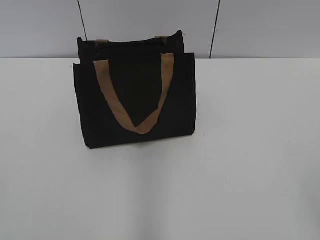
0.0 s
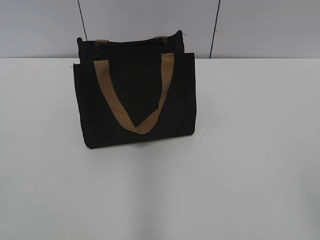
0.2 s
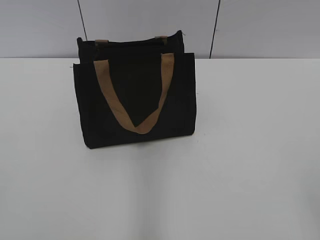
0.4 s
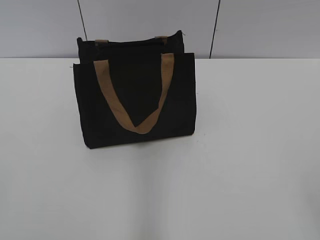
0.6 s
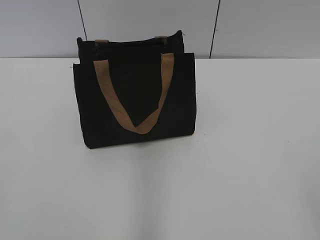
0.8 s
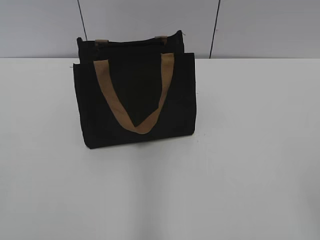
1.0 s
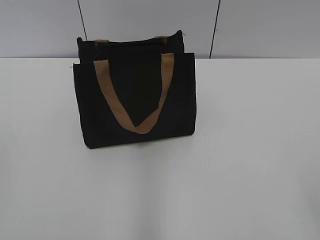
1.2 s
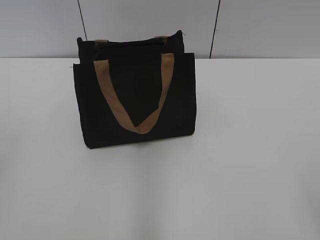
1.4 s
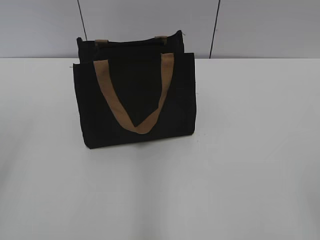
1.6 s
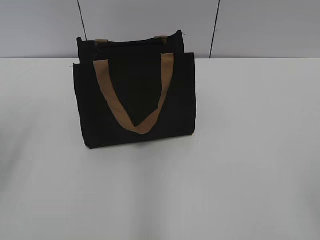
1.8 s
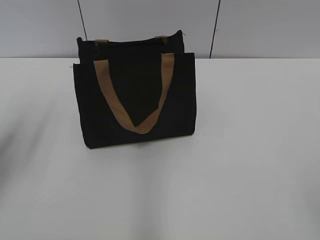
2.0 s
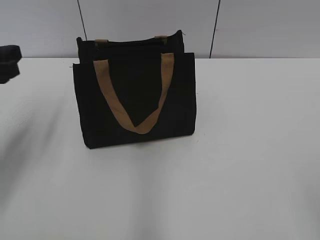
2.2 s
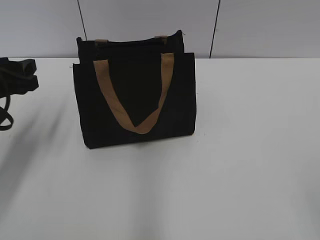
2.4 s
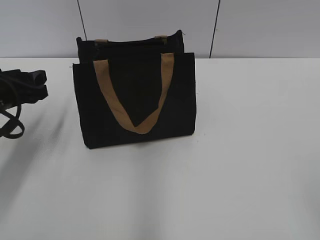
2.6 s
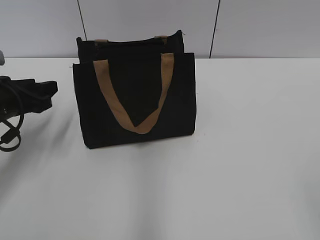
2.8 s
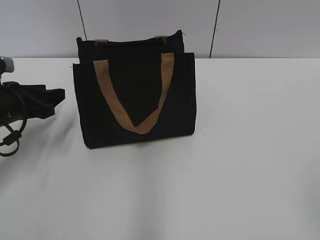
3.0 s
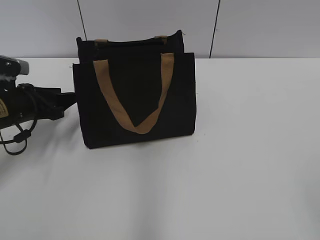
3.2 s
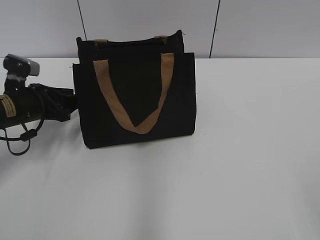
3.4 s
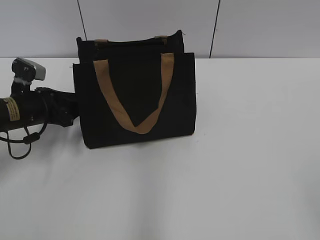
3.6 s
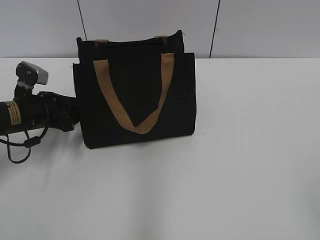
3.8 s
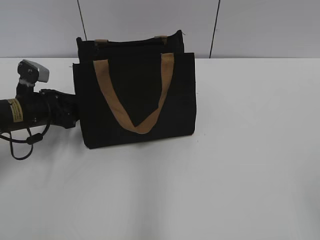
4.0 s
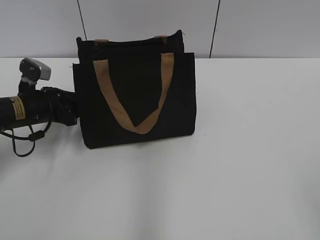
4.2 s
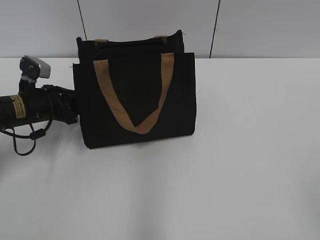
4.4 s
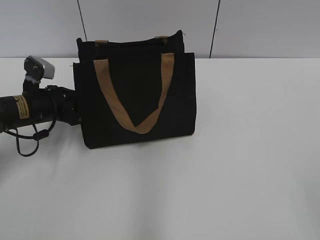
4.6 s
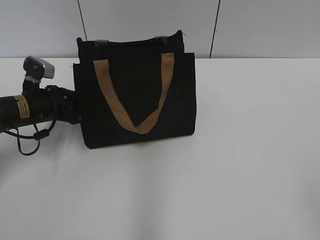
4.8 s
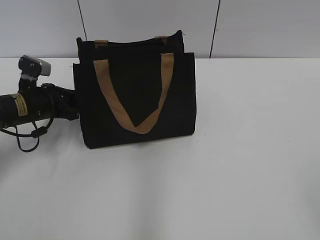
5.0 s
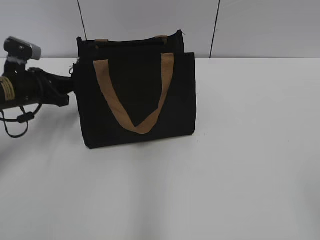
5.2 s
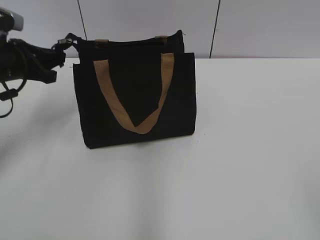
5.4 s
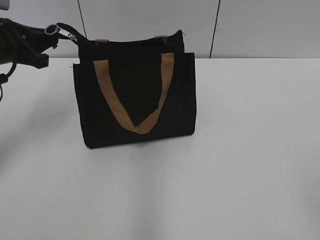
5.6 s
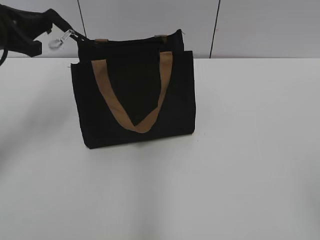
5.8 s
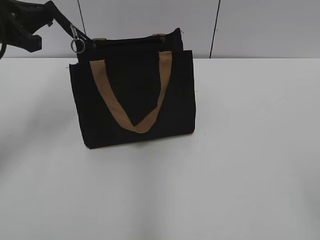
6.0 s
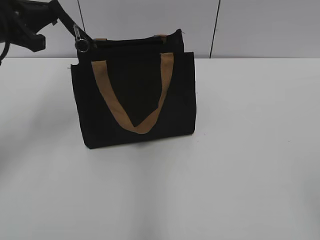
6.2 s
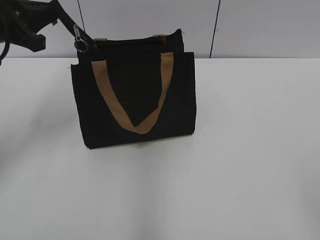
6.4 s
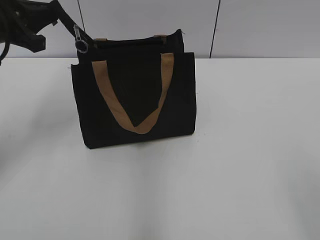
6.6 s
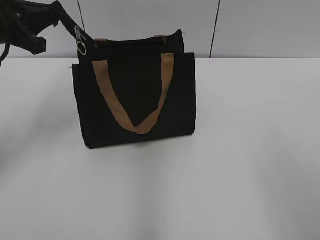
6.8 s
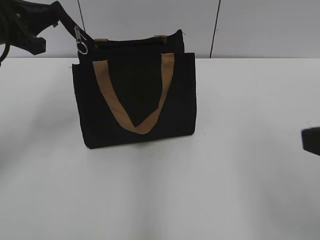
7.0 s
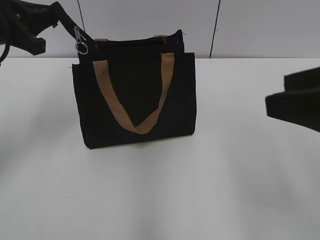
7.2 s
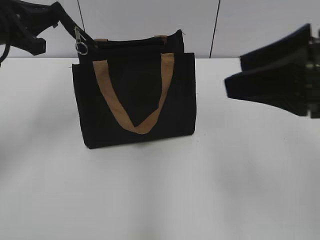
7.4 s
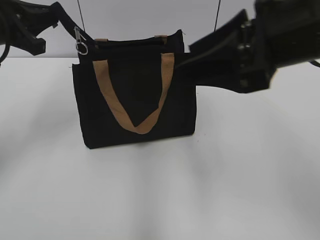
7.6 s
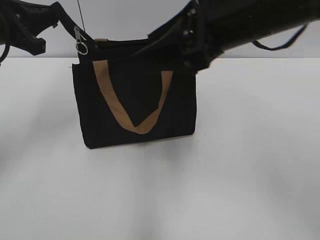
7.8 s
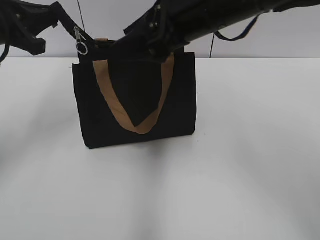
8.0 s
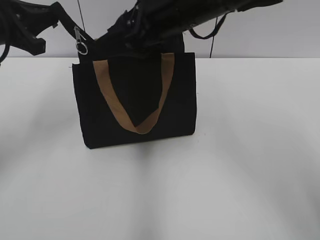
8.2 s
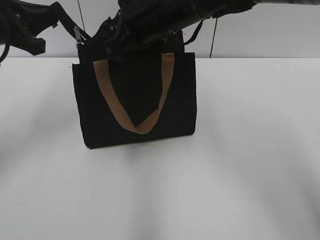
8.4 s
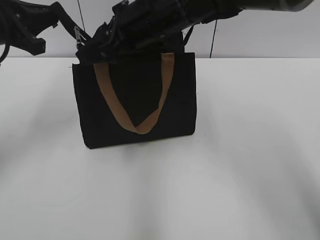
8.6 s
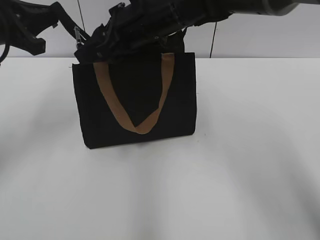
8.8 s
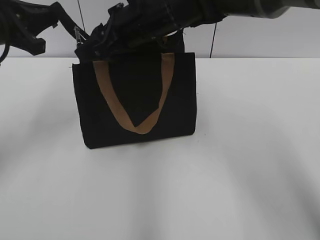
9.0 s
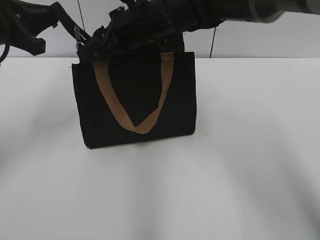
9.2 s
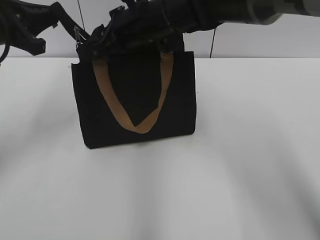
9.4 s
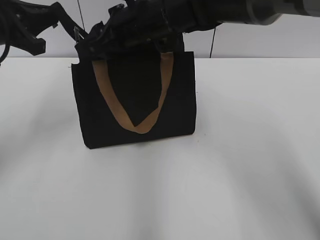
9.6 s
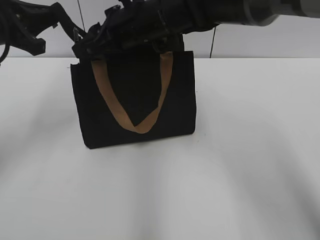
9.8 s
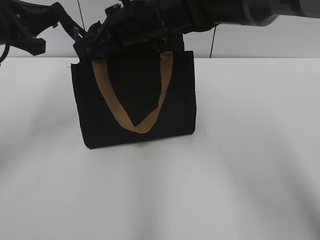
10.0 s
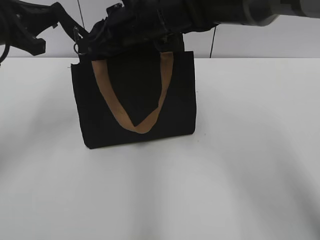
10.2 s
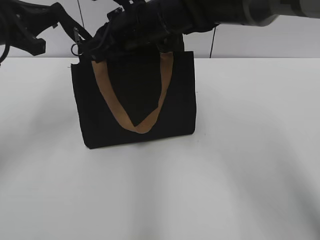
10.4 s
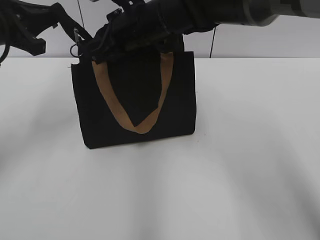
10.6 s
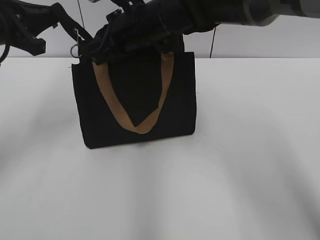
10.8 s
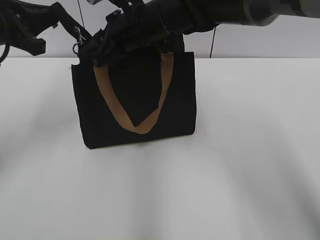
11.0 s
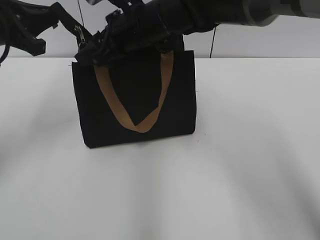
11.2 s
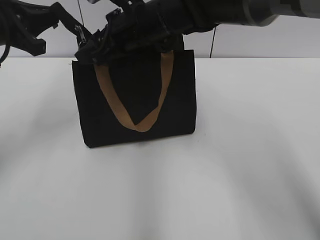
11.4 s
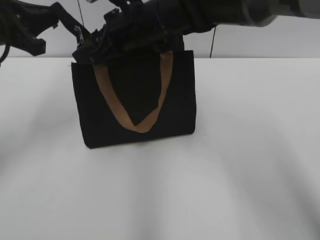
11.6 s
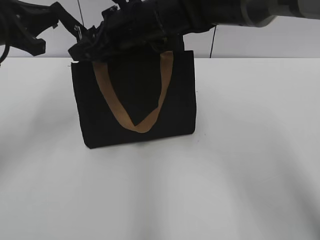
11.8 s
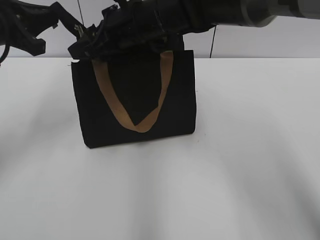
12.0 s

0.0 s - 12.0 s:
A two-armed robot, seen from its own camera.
1.6 s - 3.0 s: The left gripper heads forward and downward, covering some 30 cm.
3.0 s - 4.4 s: The left gripper moves some 5 cm, and closes.
4.4 s - 6.0 s: The left gripper shifts approximately 15 cm upward, and closes up.
6.0 s - 7.6 s: The right gripper moves forward and to the left, about 25 cm.
7.6 s - 9.0 s: The right gripper is displaced forward, to the left and downward by about 25 cm.
9.0 s - 10.4 s: The right gripper closes.
10.4 s - 12.0 s: The right gripper opens.

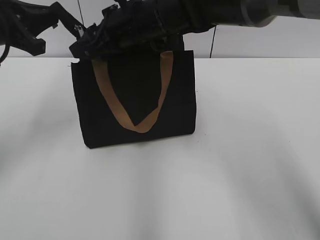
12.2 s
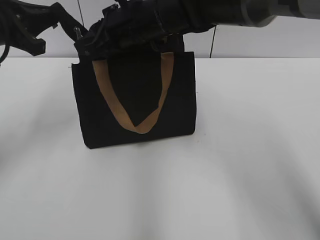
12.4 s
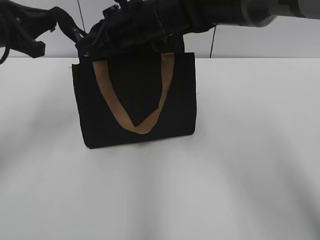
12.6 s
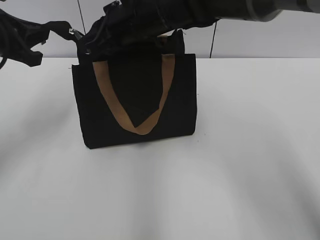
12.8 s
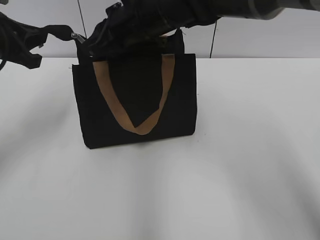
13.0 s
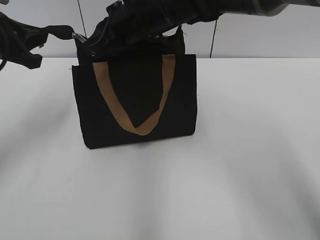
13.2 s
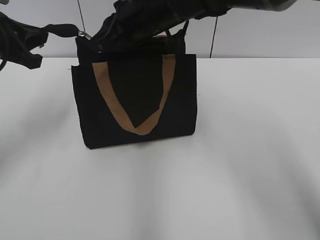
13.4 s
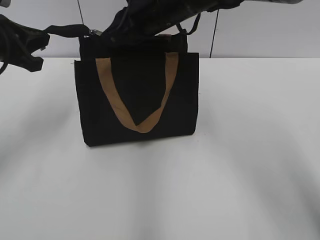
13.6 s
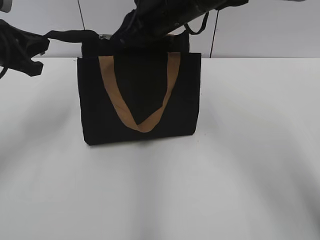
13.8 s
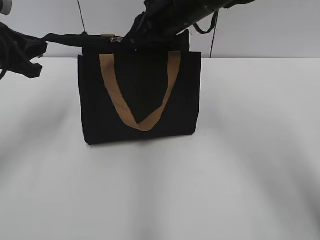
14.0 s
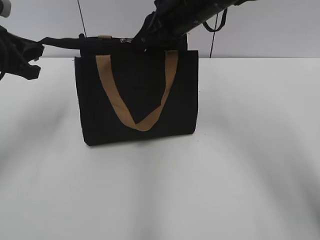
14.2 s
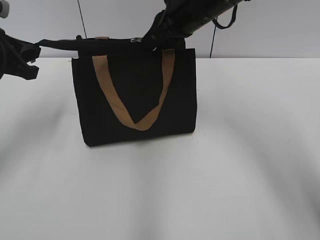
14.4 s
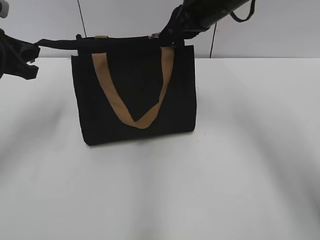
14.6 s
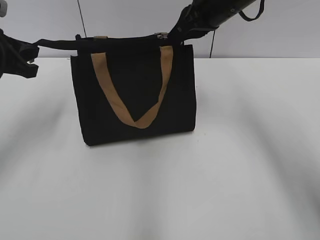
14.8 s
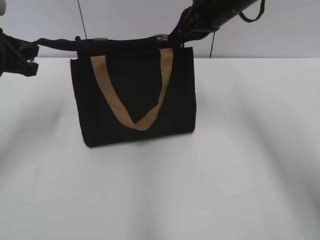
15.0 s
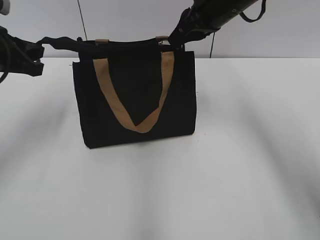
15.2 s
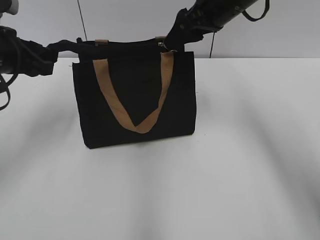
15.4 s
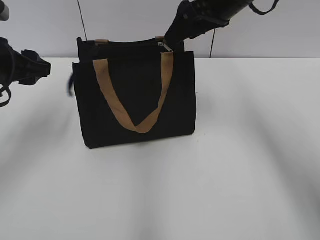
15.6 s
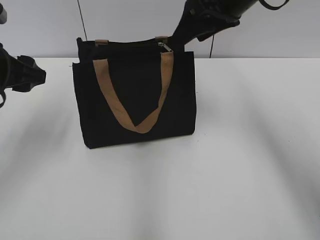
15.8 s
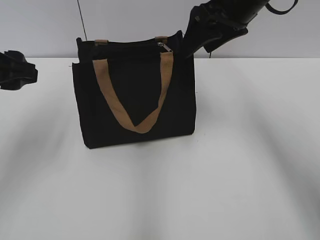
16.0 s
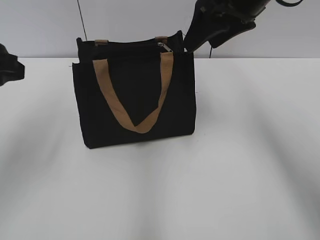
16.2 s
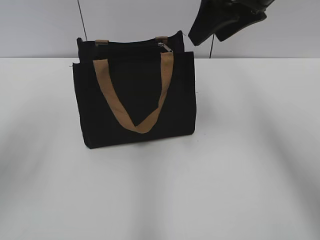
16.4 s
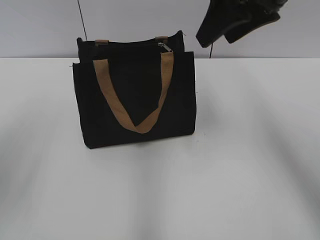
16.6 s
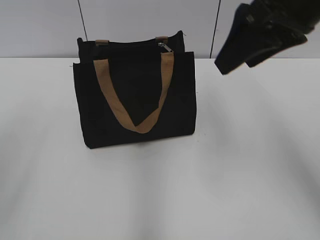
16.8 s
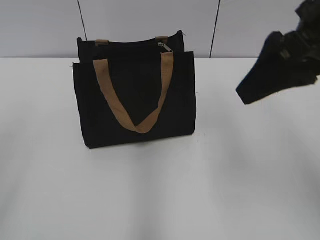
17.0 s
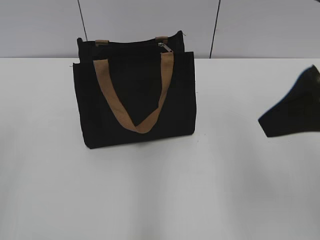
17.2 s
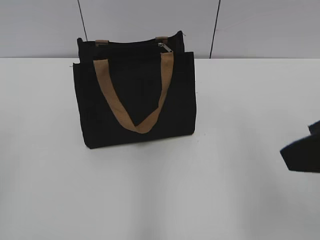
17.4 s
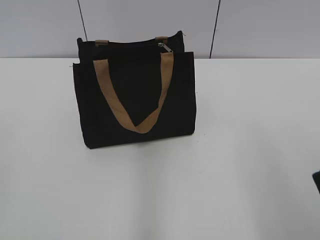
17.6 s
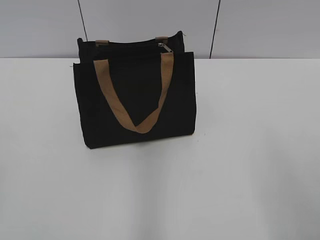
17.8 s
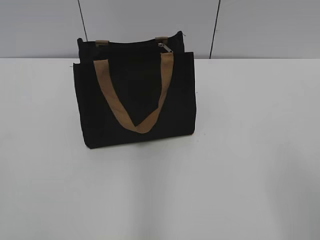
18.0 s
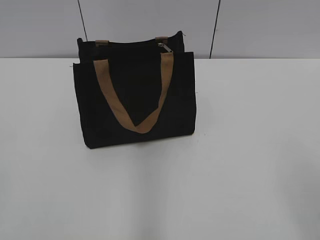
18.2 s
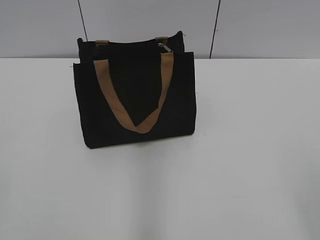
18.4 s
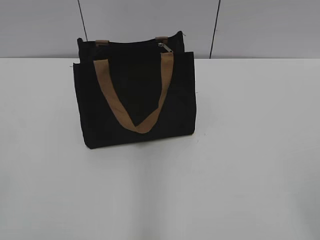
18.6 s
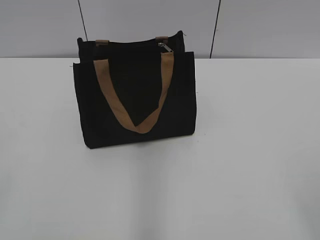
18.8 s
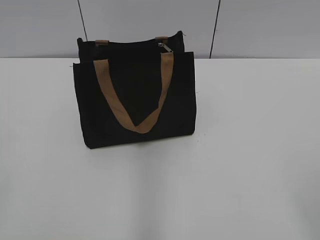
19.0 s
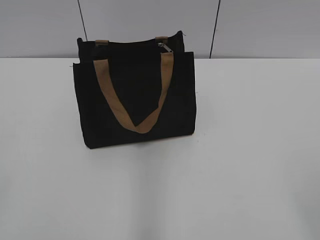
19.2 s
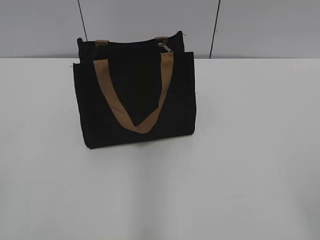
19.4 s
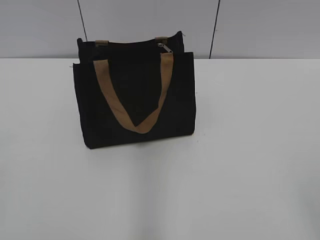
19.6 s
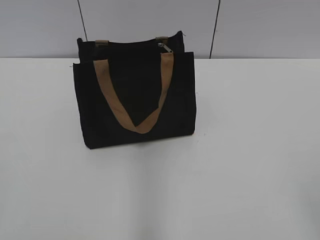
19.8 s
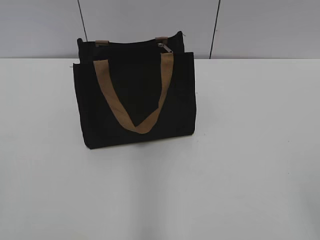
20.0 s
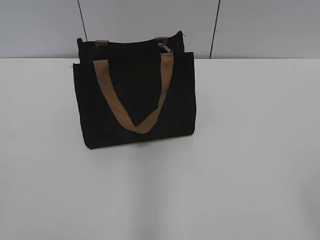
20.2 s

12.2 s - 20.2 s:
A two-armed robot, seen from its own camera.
Step, 12.2 s - 15.0 s: Zip up the bag with your right hand.
Step, 15.4 s - 15.6 s: Grab the zipper with your left hand.
12.2 s - 13.8 s: The right gripper travels to the right by about 5 cm, and closes its fingers.
13.8 s - 15.4 s: The right gripper moves to the right, some 10 cm, and opens its fingers. The left gripper opens its fingers.
15.4 s - 17.0 s: The left gripper moves backward and upward, roughly 25 cm, and opens its fingers. Meanwhile the right gripper shifts some 20 cm backward.
17.0 s - 18.6 s: The right gripper goes about 25 cm backward and to the right.

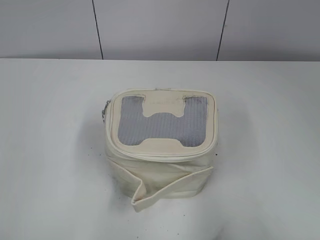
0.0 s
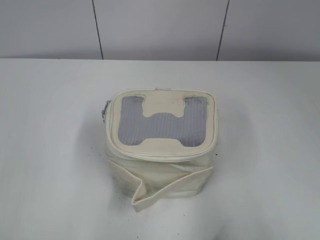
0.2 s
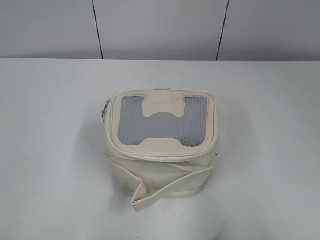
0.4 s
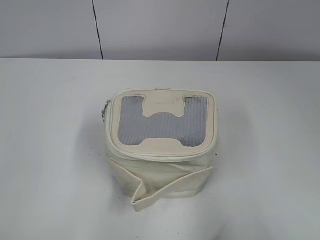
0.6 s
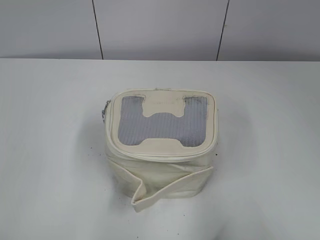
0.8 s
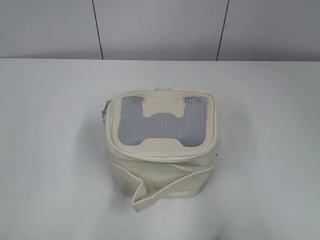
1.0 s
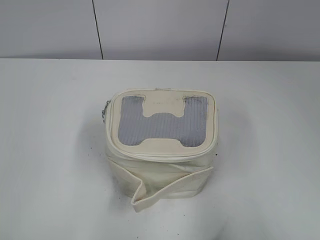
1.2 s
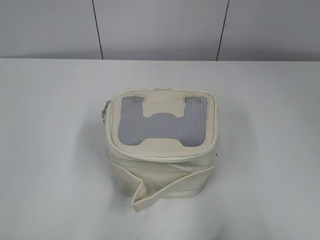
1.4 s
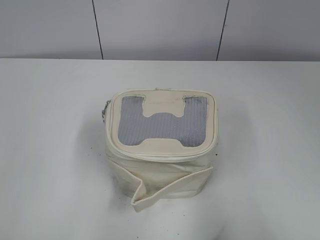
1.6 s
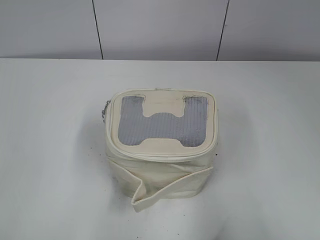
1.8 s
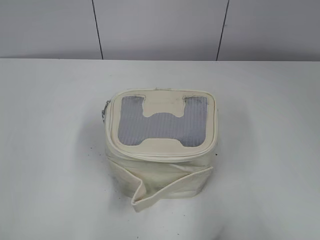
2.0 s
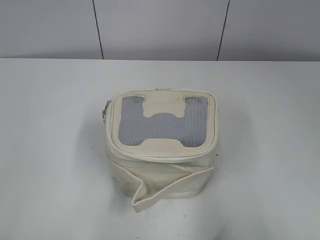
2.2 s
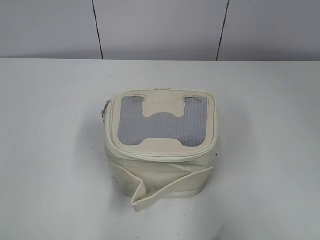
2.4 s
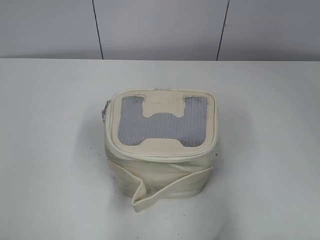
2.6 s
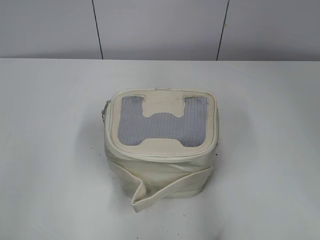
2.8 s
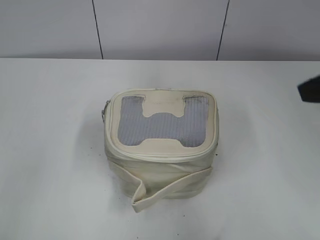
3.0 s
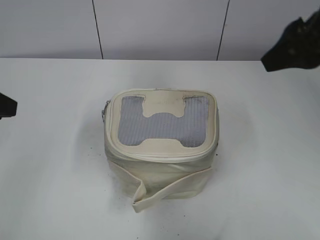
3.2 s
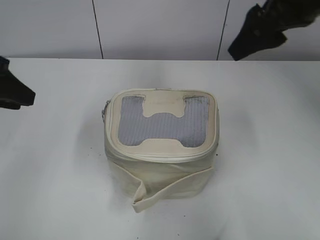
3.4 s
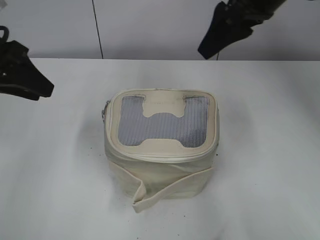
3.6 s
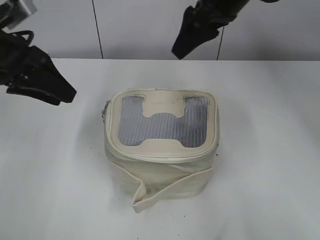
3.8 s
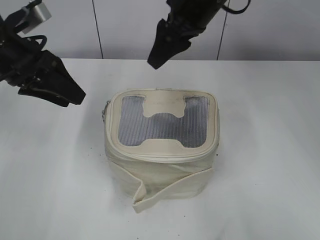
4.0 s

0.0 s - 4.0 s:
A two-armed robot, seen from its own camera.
1.4 s - 2.6 s: The right gripper is displaced forward by some 5 cm.
2.6 s - 4.0 s: The left gripper goes approximately 25 cm forward. The right gripper goes approximately 40 cm forward and to the left.
